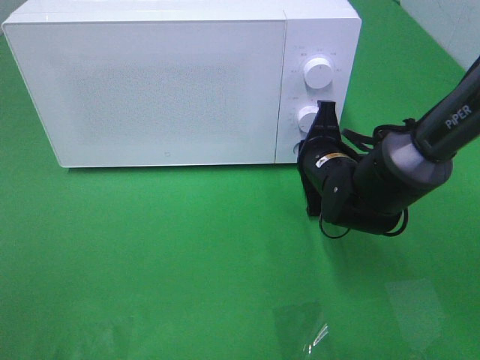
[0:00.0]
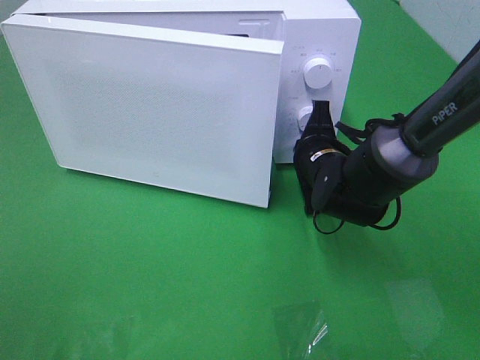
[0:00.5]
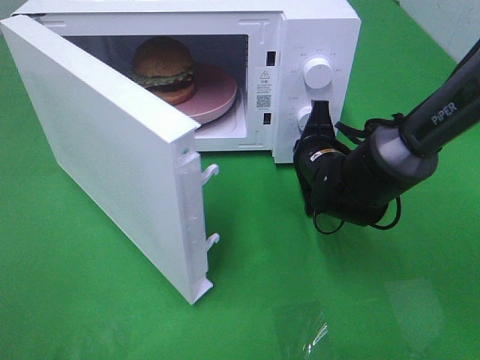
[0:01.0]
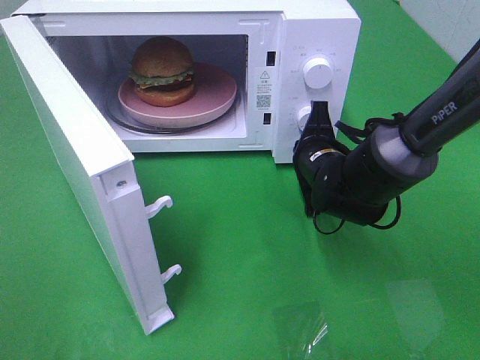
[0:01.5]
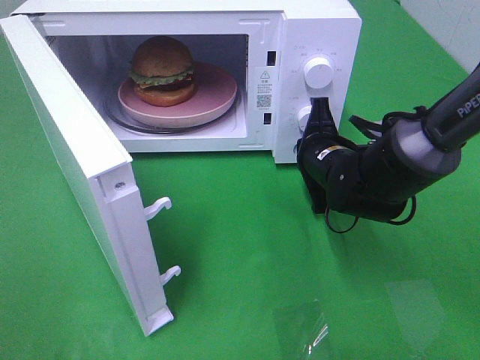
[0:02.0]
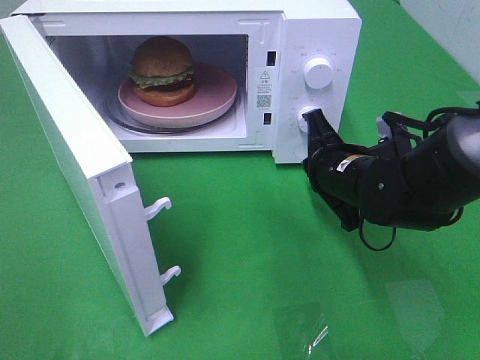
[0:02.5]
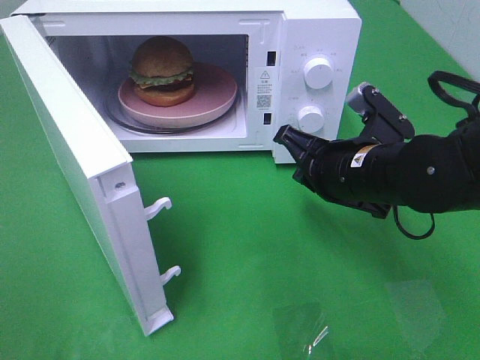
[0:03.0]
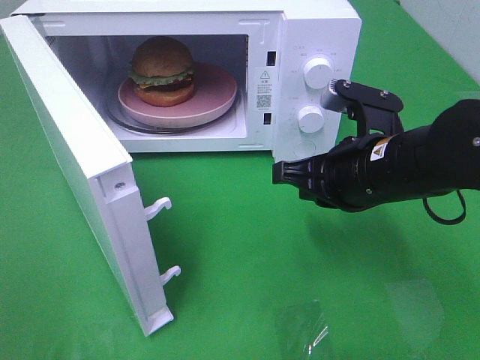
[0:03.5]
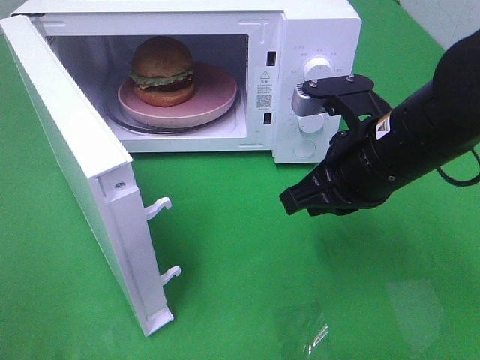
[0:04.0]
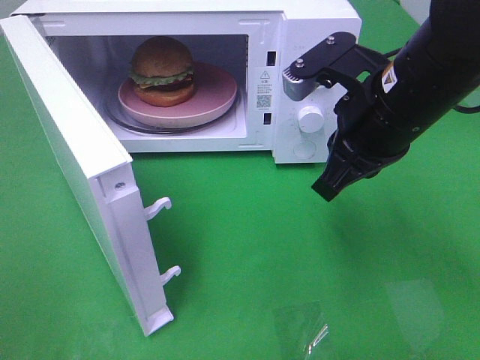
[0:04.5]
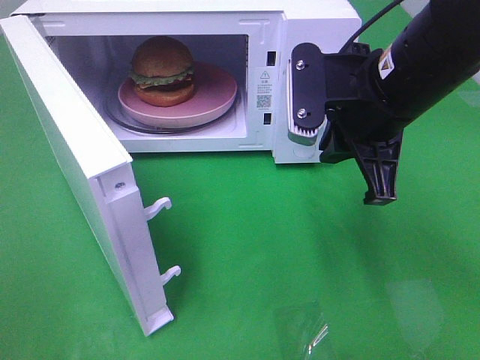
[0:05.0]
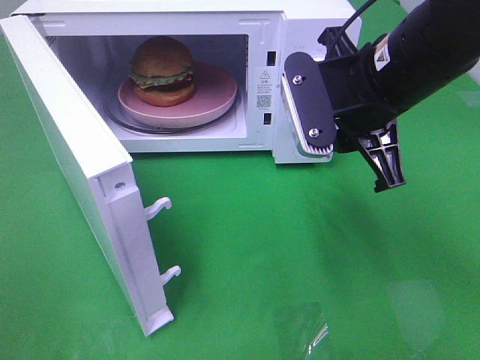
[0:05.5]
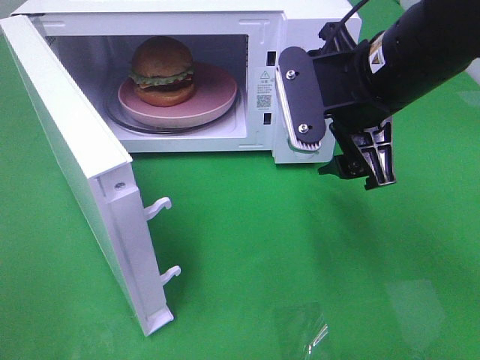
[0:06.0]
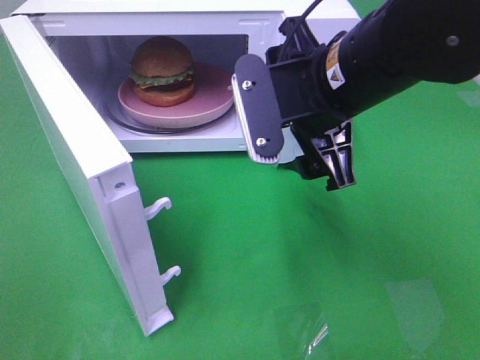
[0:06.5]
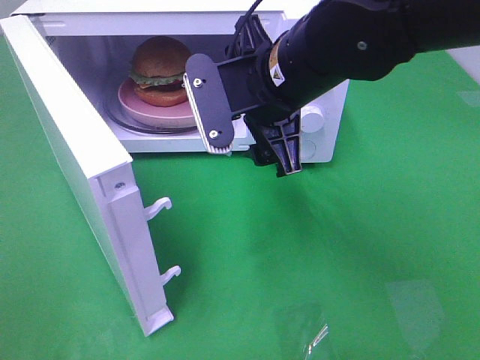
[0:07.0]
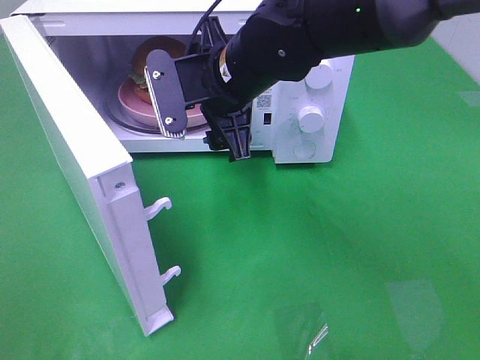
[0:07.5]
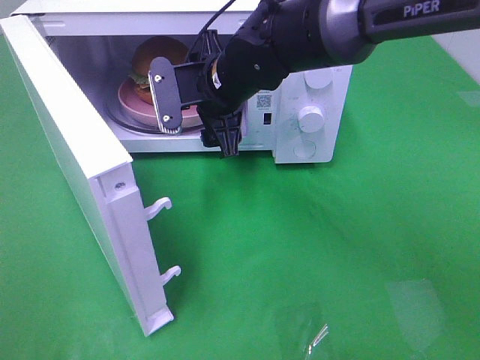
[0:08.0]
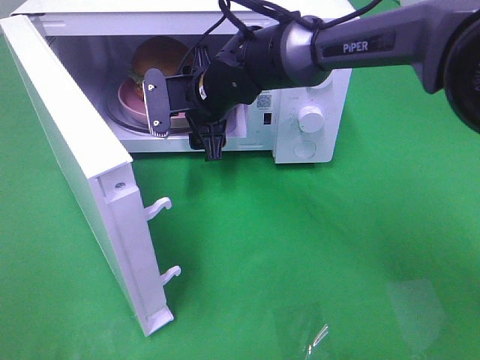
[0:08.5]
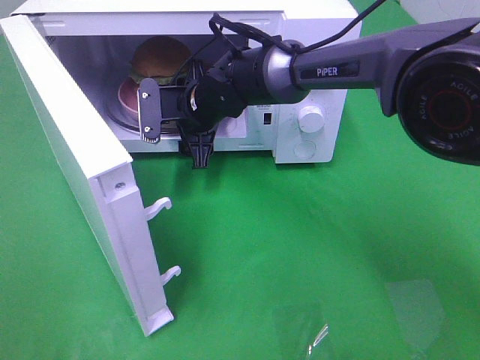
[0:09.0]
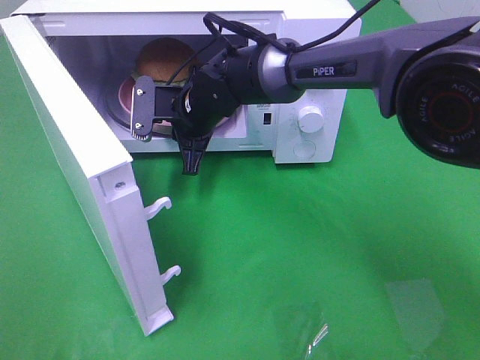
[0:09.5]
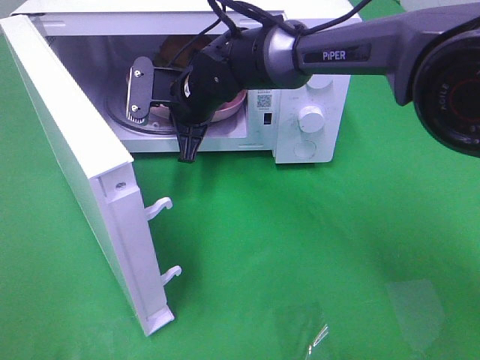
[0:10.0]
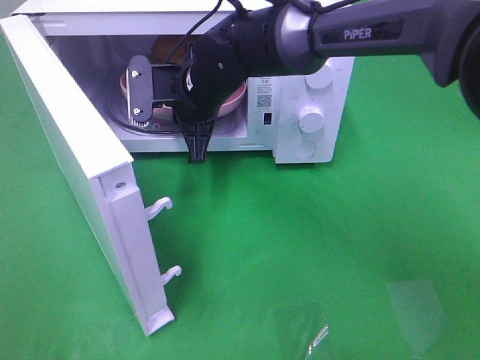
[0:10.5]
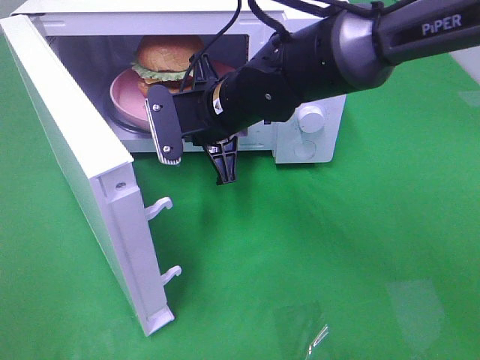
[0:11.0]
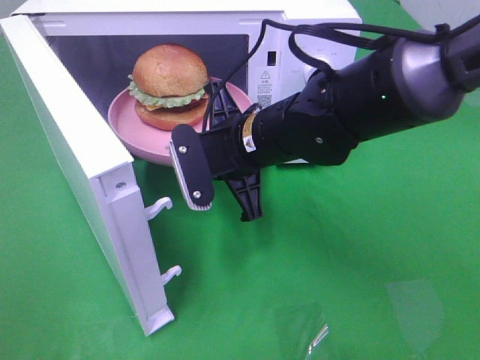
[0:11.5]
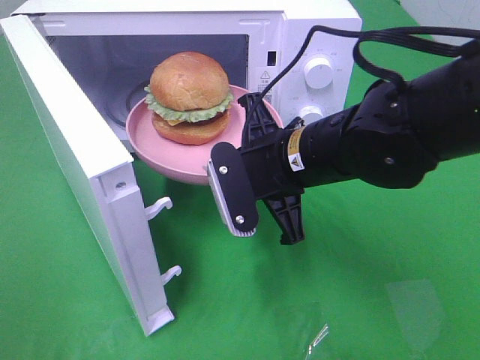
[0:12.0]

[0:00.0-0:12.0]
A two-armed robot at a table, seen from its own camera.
Task of the whole recording: Heat the burger.
Step, 0:00.0 to 0:02.0: Right hand: press the switch.
Step, 0:02.5 to 0:09.5: Right hand: grab the plate with the hamburger.
0:02.0 to 0:04.0: The right gripper is displaced upward and backward by approximately 15 cm.
0:04.0 to 0:06.0: The right gripper goes about 5 cm upward, and opens.
0:06.0 to 0:08.0: The right gripper goes roughly 20 cm to the left, forward and downward.
0:08.0 to 0:10.0: The right gripper changes place by about 5 cm, and closes its fingers.
0:10.0 to 0:12.0: The right gripper travels backward and to the right by roughly 20 cm.

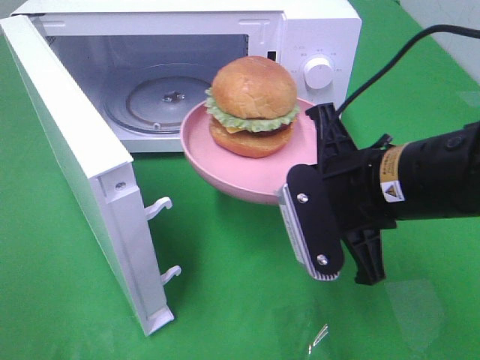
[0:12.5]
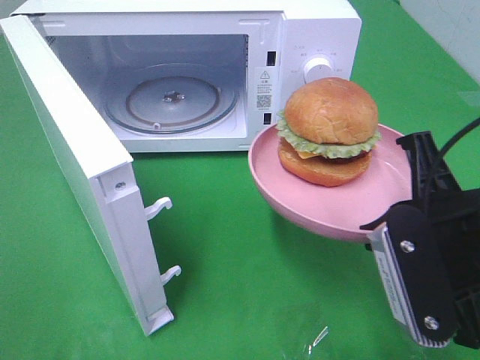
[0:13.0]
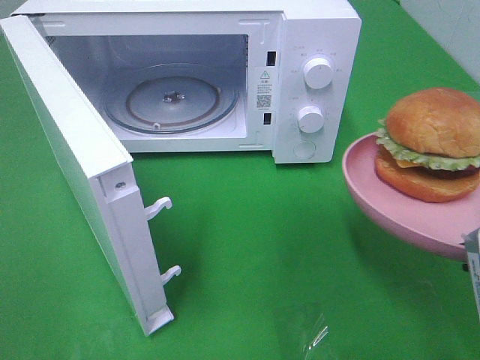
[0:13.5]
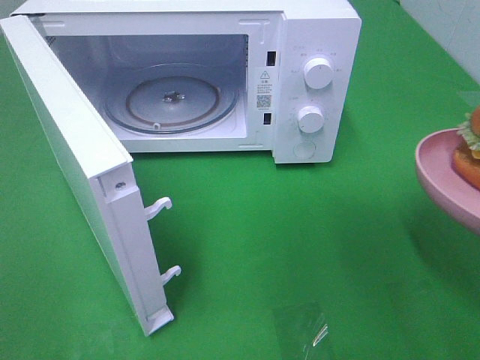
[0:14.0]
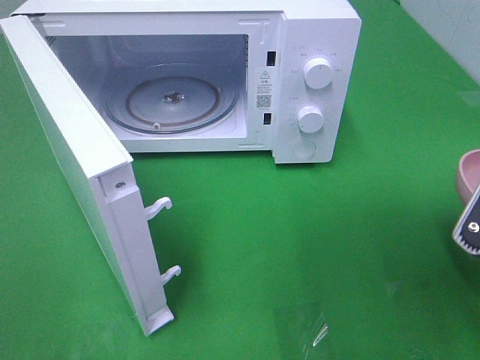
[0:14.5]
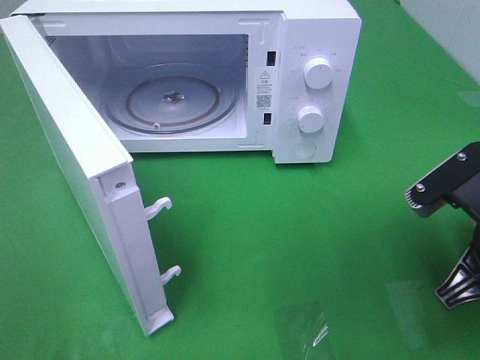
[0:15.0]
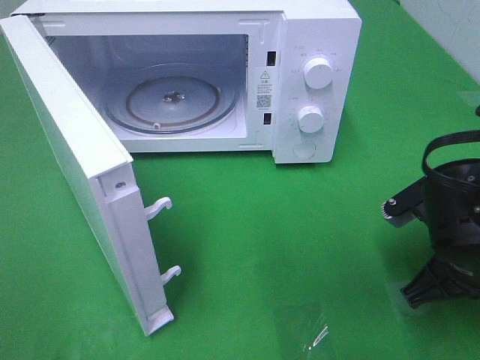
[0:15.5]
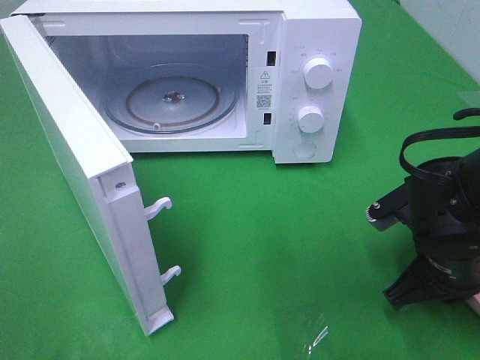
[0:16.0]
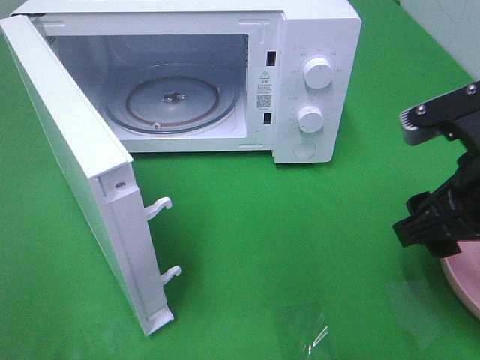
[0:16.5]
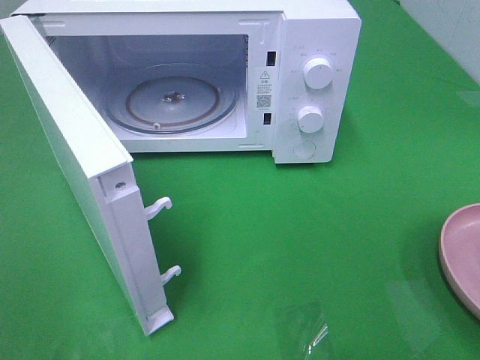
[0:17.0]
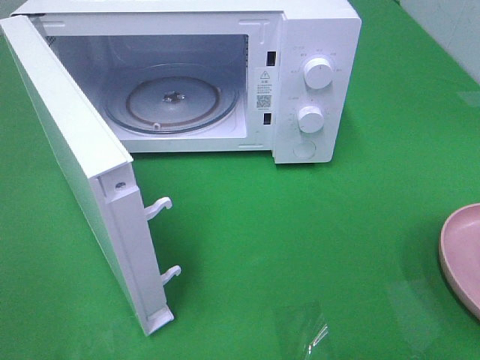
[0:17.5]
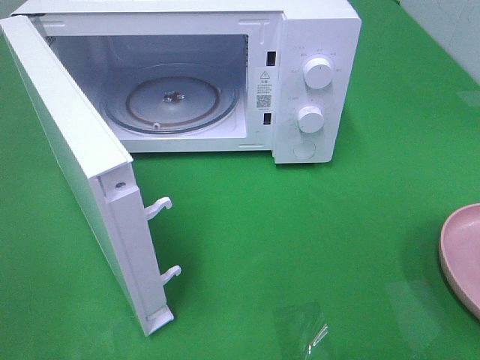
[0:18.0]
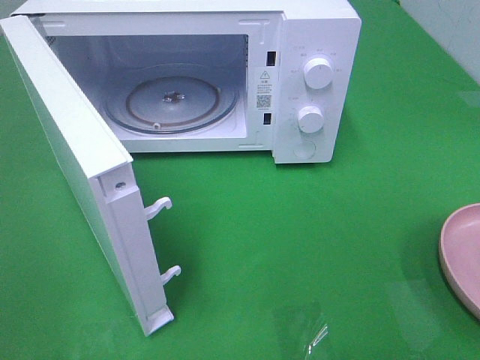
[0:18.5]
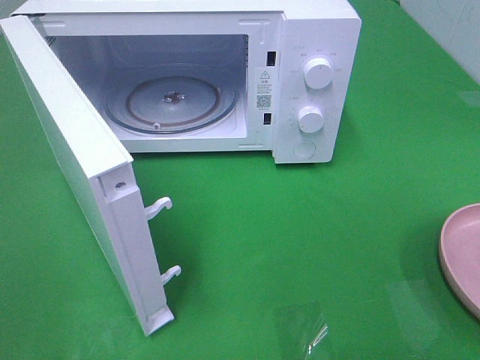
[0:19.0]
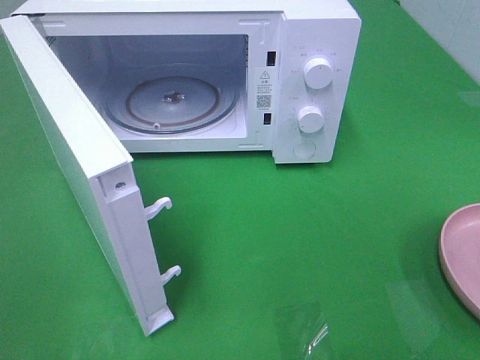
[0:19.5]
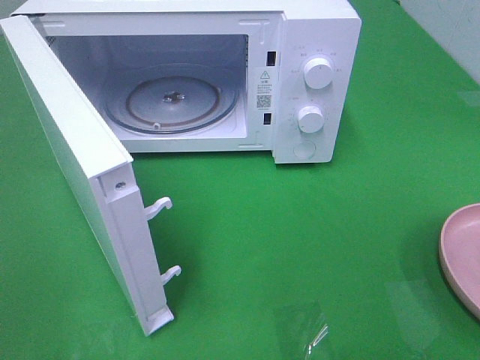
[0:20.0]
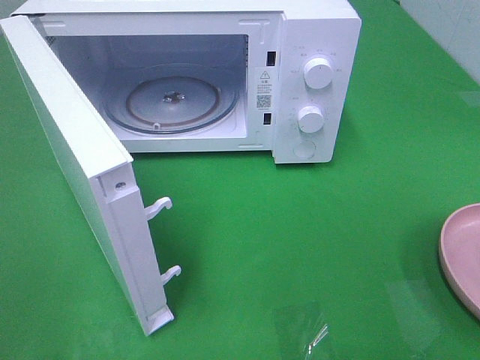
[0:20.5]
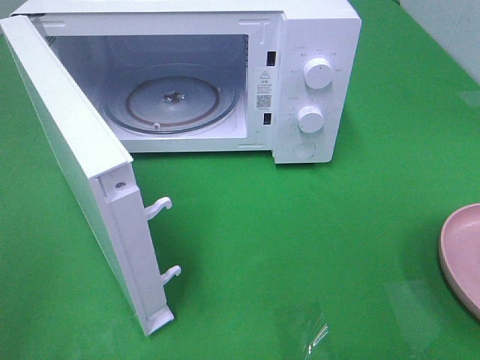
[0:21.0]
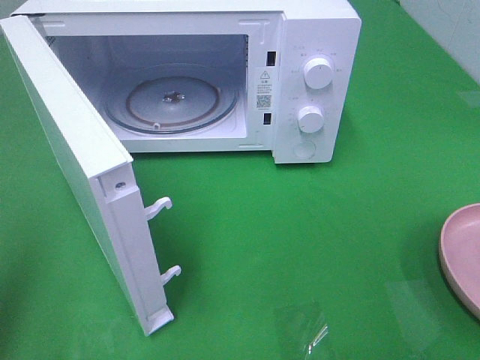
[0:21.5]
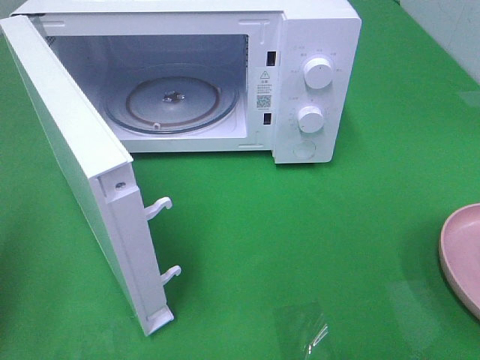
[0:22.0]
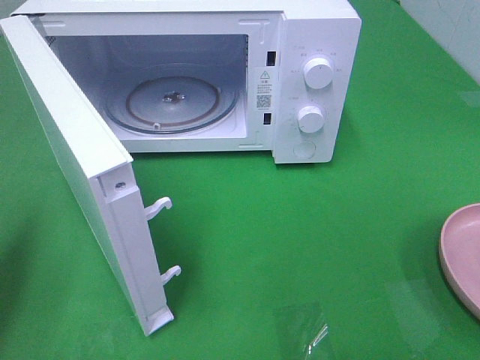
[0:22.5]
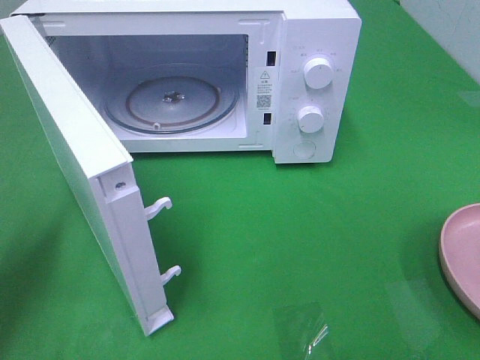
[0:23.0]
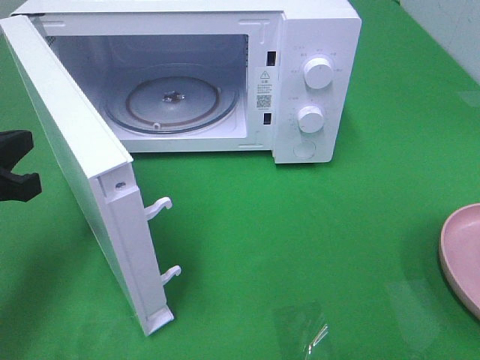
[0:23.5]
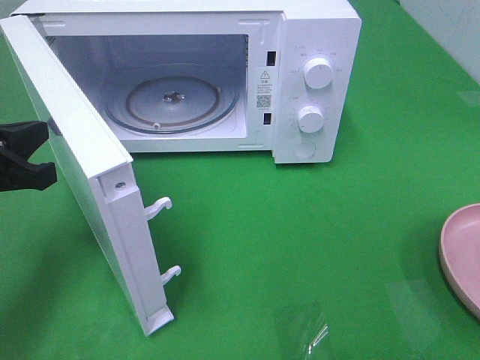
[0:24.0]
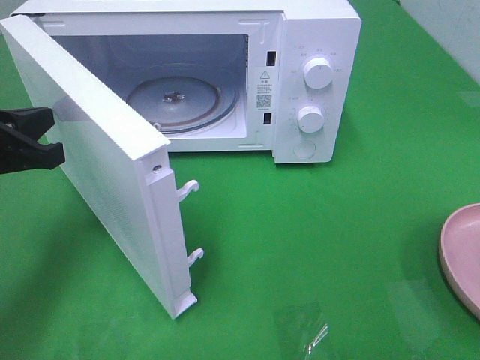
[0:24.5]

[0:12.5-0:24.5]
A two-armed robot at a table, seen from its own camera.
Task of the whole recording: Heat the burger.
Step, 0:12.5 to 0:16.0: Right hand: place the plate on the table.
0:12.5 to 0:14.5: The right gripper is displaced to the right and backward by some 15 cm.
0:14.5 to 0:16.5: The right gripper moves roughly 10 cm downward and comes back, and opens up.
0:16.5 to 0:18.5: The right gripper is displaced backward and to the right by roughly 20 cm.
0:18.5 to 0:20.5: Both grippers stay about where they are.
0:20.5 to 0:22.5: The left gripper heads forward and downward, covering some 20 cm, and closes.
0:22.5 to 0:24.5: The left gripper moves forward and to the right, roughly 10 cm.

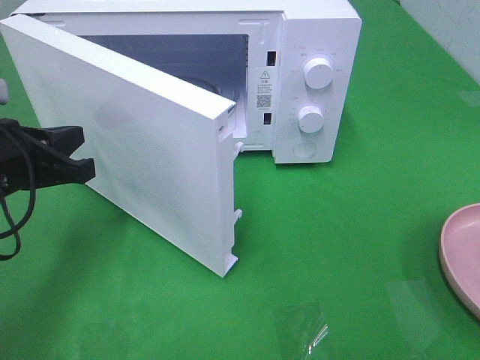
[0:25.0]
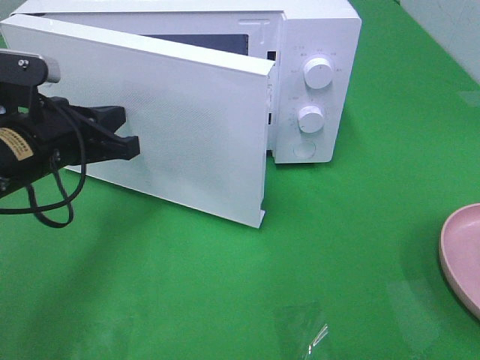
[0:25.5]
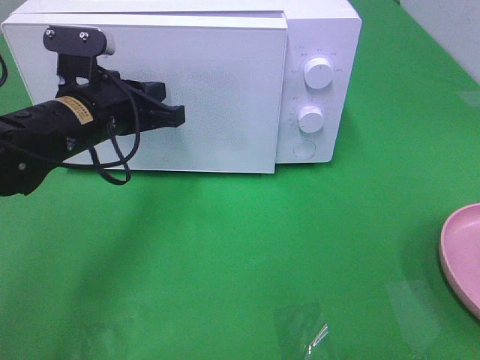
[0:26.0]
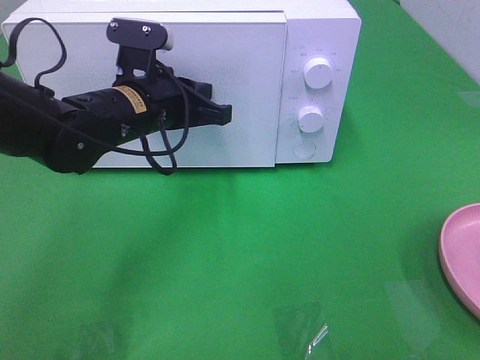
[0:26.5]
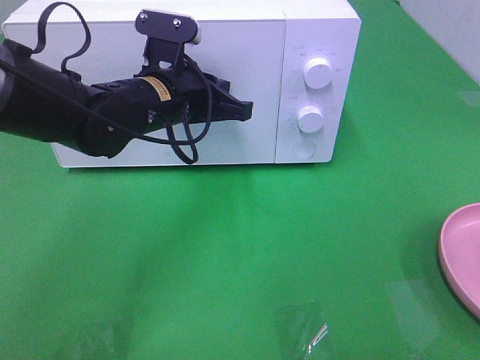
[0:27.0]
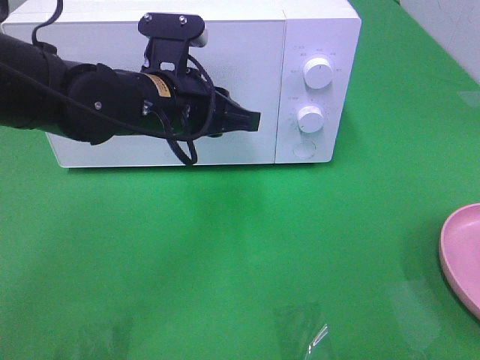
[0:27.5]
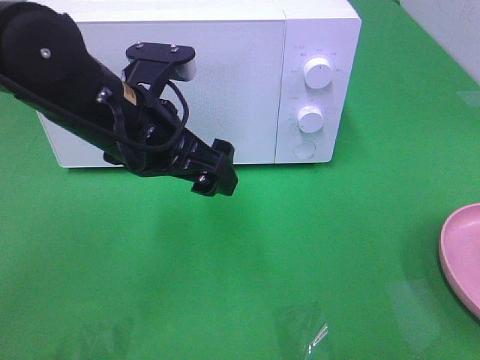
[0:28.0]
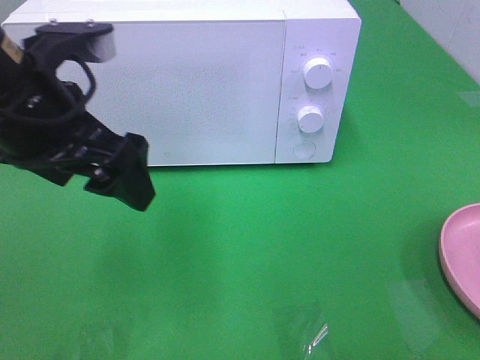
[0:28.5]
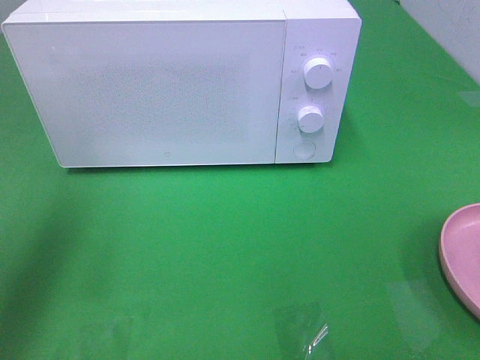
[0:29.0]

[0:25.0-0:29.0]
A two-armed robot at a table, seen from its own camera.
Task of the whole recording: Heat the burger.
Step, 0:25.0 to 0:27.0: Left hand: close the microwave door.
0:25.0 to 0:27.0: The left gripper heads to the right and forward, covering about 20 cm.
0:27.0 to 0:29.0: The left gripper is displaced to the left, upward and backward by some 25 cm, and opens up.
